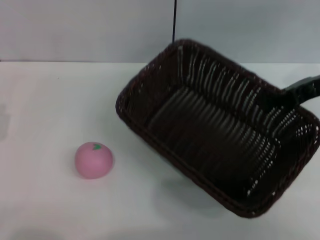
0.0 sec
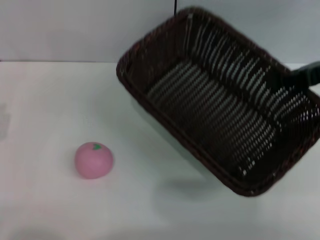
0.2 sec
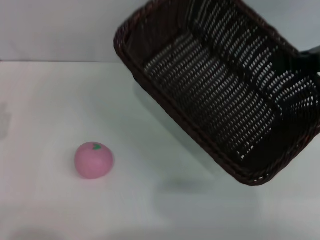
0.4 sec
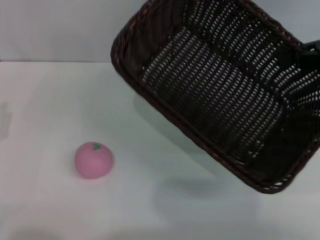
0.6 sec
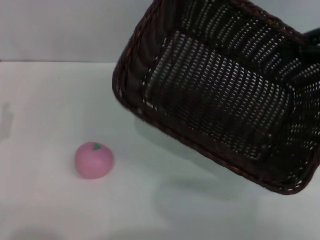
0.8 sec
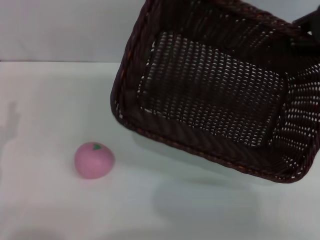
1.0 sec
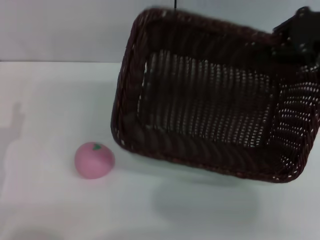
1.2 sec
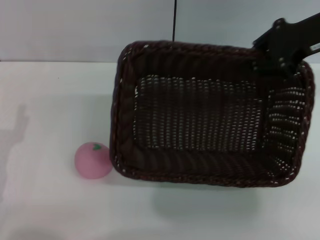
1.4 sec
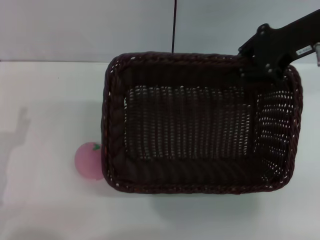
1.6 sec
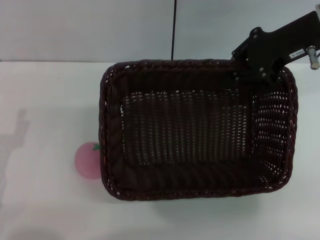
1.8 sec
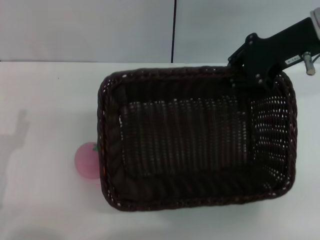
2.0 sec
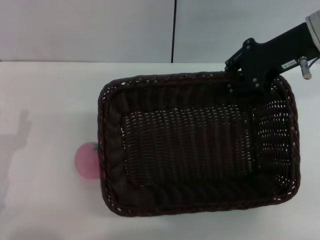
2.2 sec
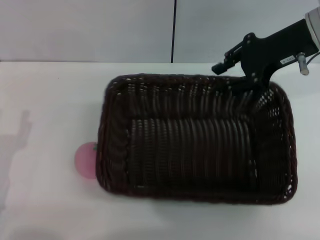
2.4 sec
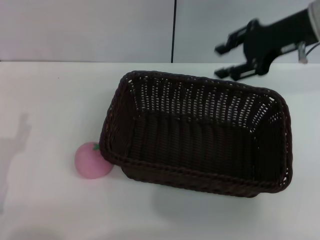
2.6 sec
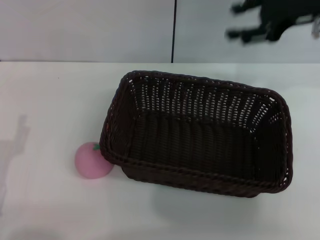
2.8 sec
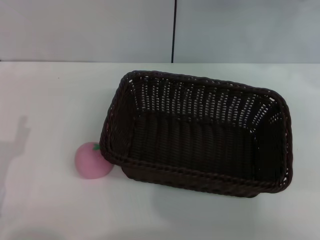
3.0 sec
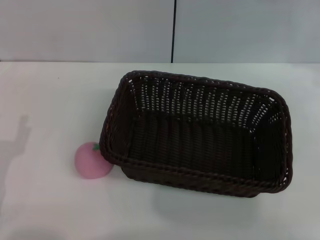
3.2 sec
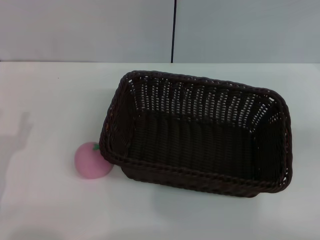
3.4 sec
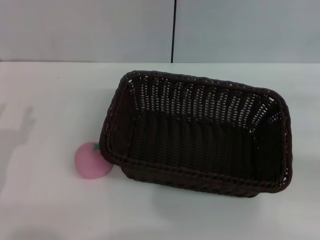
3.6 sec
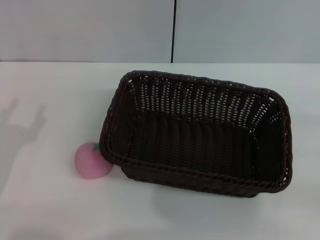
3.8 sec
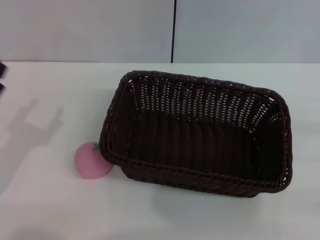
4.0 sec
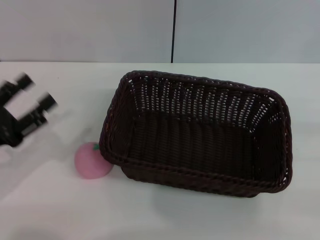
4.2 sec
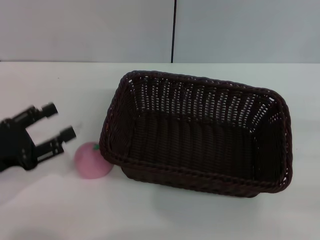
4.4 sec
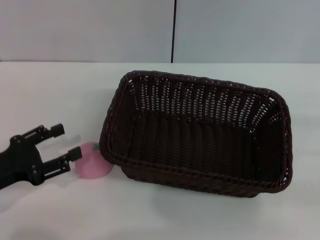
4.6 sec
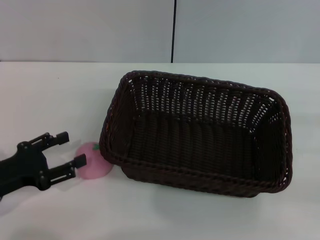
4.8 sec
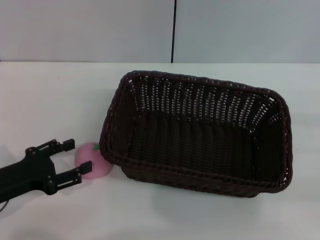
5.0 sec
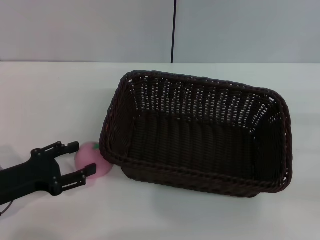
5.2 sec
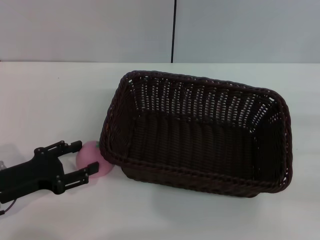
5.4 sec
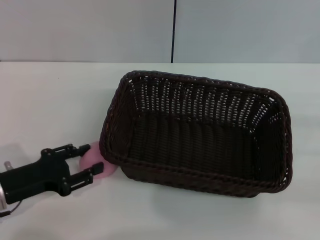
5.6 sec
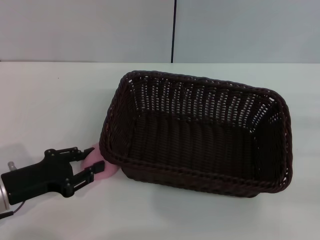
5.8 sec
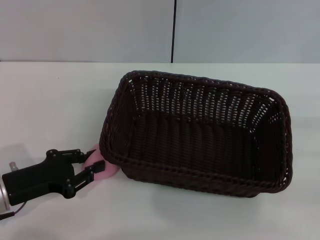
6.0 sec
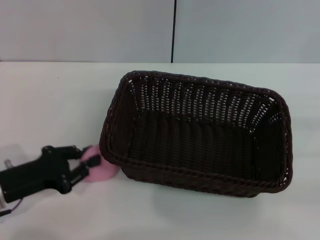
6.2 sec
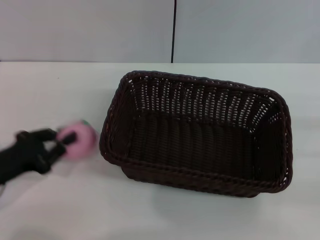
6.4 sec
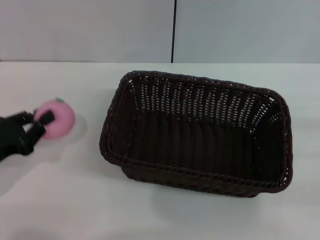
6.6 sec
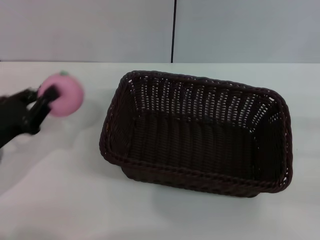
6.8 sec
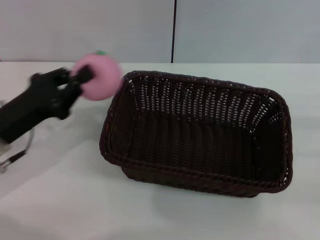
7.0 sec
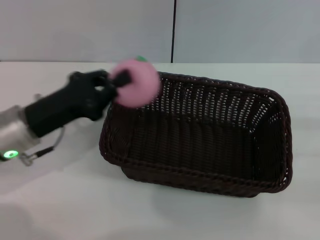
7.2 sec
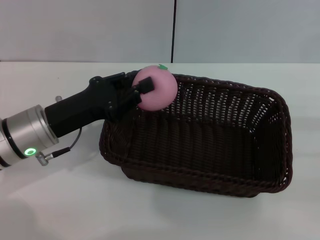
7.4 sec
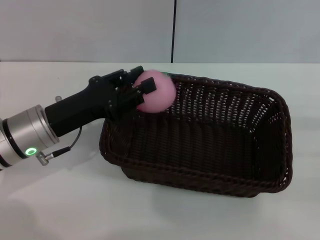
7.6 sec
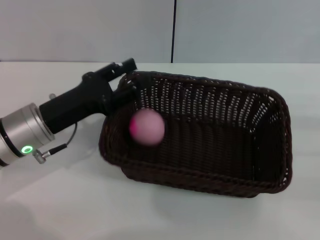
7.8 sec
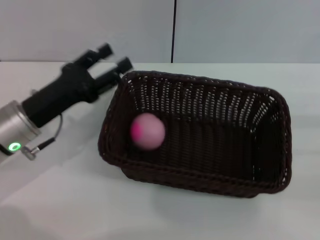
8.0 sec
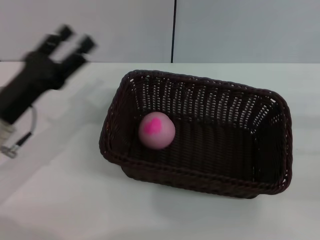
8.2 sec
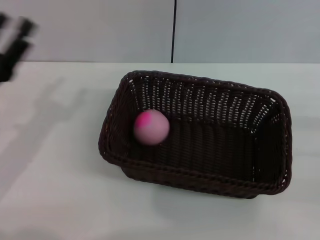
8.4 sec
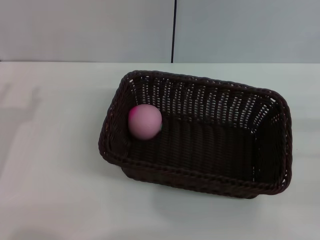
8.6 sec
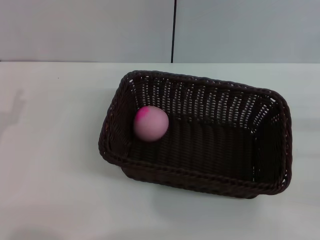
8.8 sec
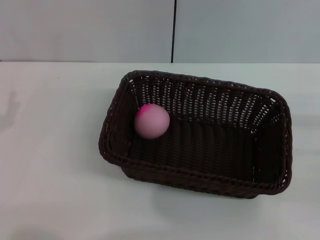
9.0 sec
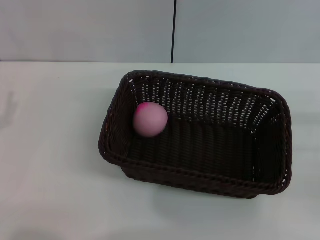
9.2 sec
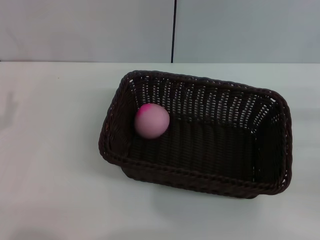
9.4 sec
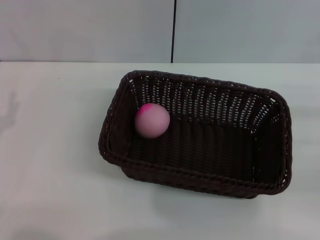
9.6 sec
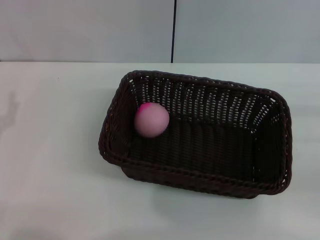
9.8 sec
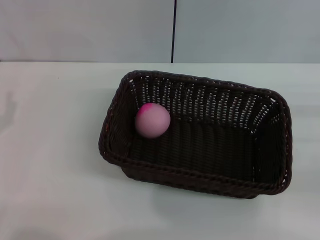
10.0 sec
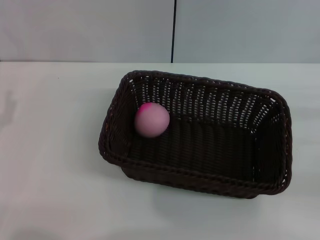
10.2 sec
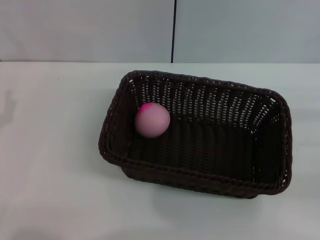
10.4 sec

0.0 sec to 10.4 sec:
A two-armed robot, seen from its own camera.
Step, 0.4 sec to 2.4 sec: Place the dark basket in the center of view with the right gripper.
Step, 2.8 sec to 6.8 sec: Pick up the peach with the left gripper.
Step, 7.0 sec to 8.0 sec: Place the peach into the basket with the left gripper.
0.0 sec to 1.4 sec: The right gripper heads upward, covering approximately 5 cm.
1.4 sec to 3.0 sec: The right gripper heads to the right, covering roughly 5 cm, and opens.
3.0 sec to 4.4 sec: The left gripper goes some 5 cm forward.
4.4 sec to 6.0 sec: The left gripper shifts by some 5 cm, and closes its fingers.
6.0 sec to 7.4 sec: The left gripper shifts about 10 cm to the right, forward and upward.
7.4 sec to 9.0 sec: The left gripper moves to the left and backward, approximately 15 cm, and opens.

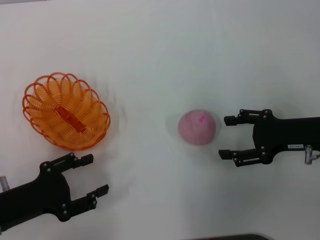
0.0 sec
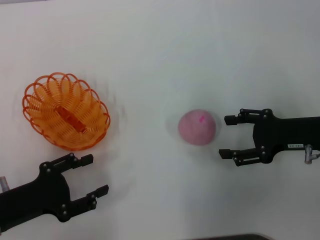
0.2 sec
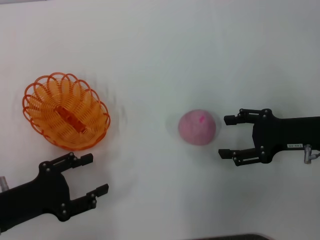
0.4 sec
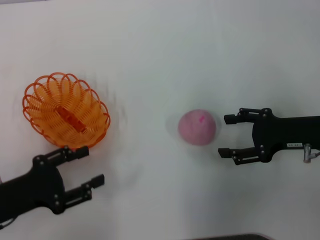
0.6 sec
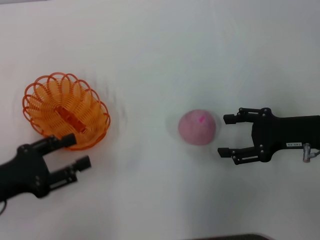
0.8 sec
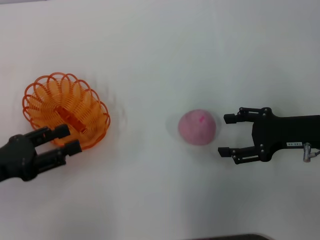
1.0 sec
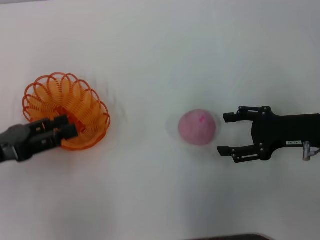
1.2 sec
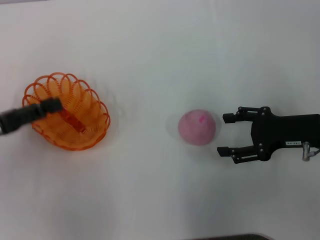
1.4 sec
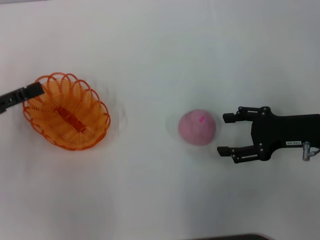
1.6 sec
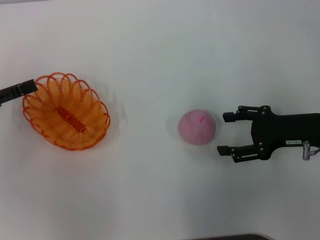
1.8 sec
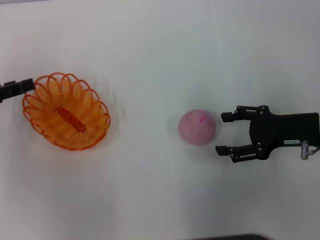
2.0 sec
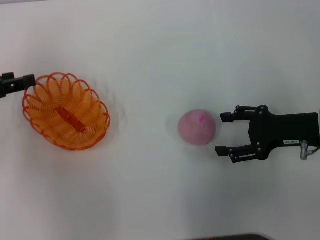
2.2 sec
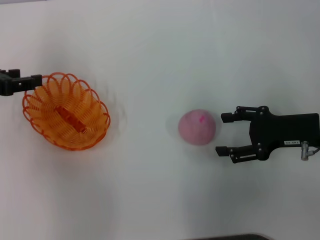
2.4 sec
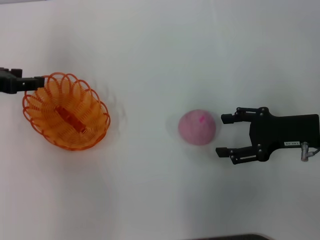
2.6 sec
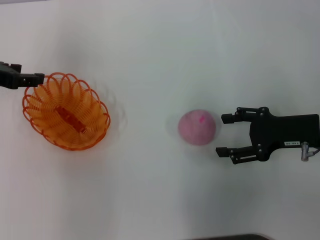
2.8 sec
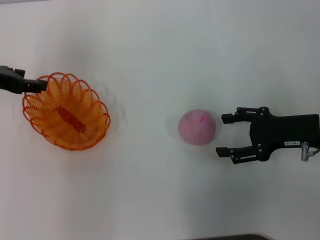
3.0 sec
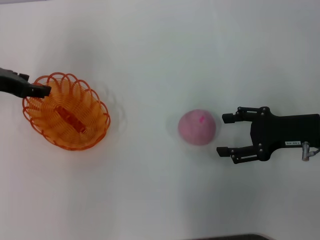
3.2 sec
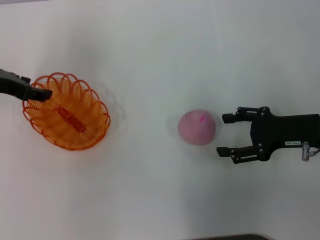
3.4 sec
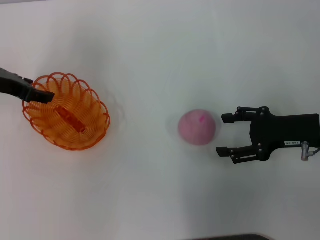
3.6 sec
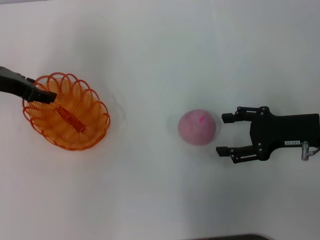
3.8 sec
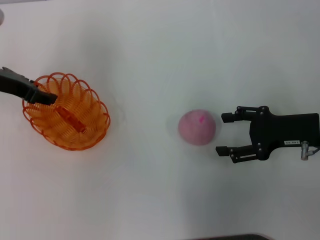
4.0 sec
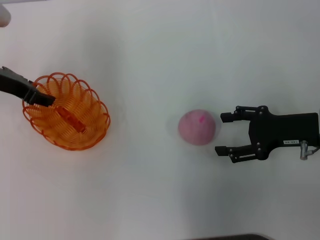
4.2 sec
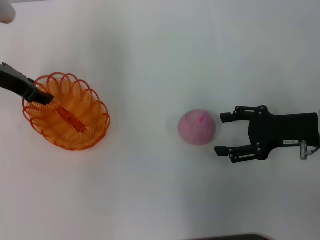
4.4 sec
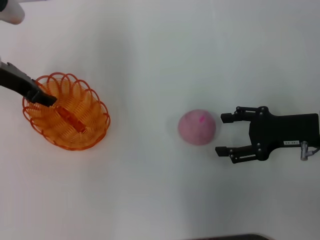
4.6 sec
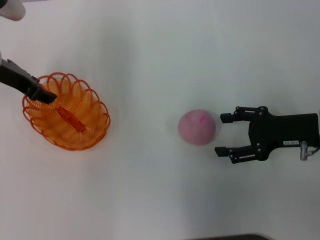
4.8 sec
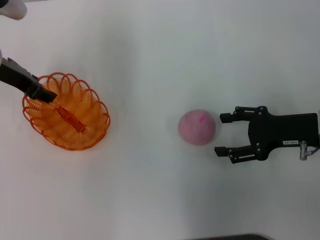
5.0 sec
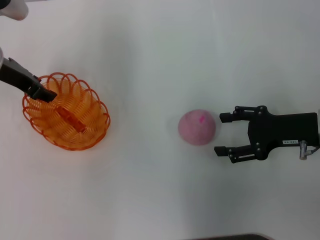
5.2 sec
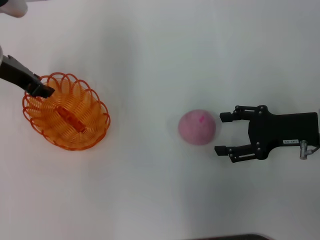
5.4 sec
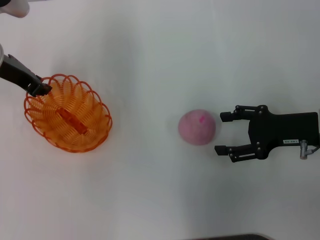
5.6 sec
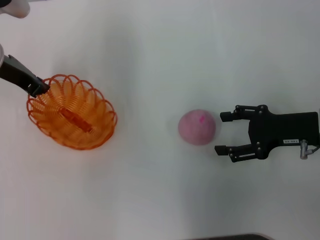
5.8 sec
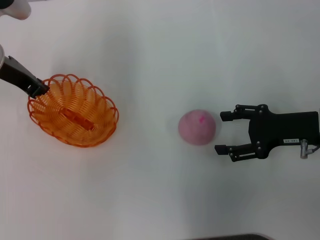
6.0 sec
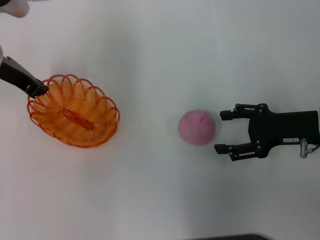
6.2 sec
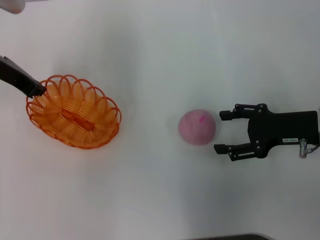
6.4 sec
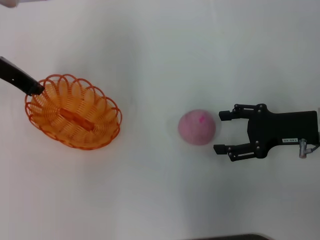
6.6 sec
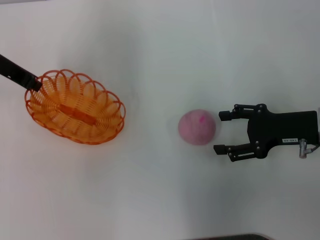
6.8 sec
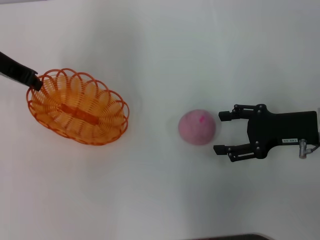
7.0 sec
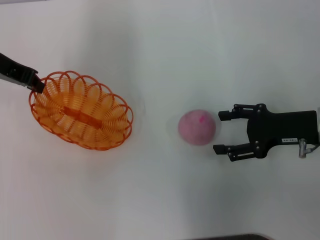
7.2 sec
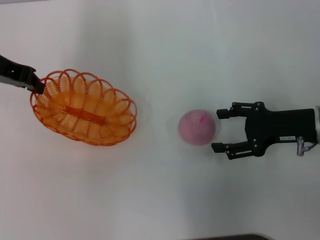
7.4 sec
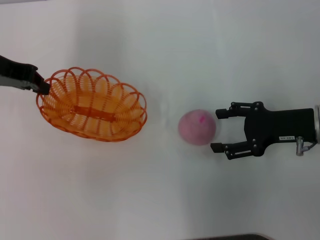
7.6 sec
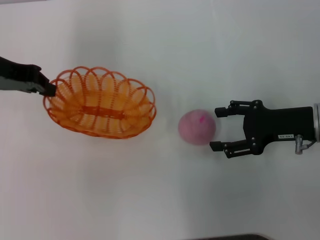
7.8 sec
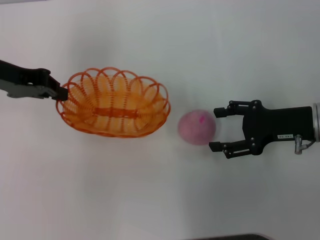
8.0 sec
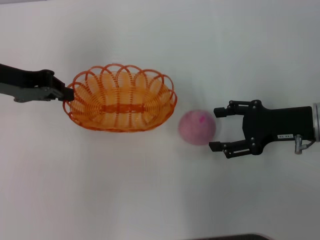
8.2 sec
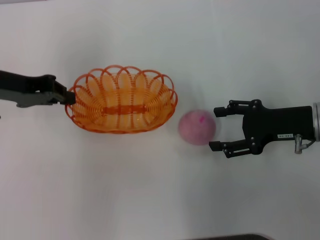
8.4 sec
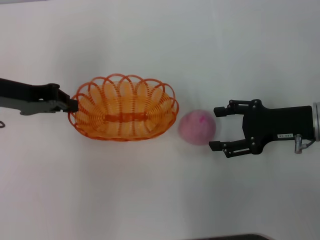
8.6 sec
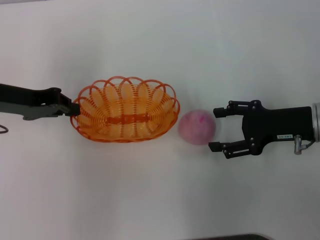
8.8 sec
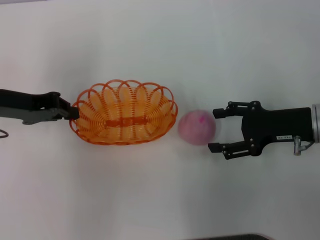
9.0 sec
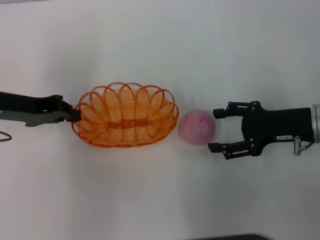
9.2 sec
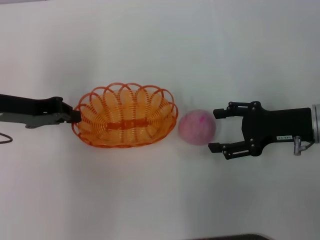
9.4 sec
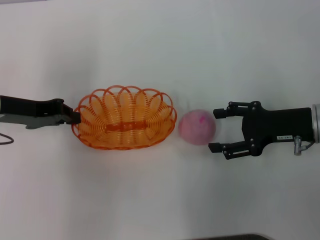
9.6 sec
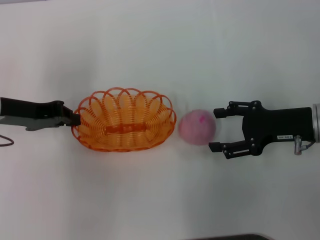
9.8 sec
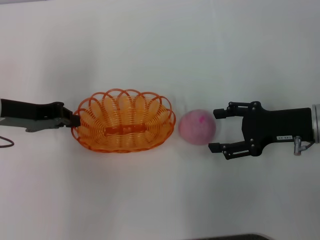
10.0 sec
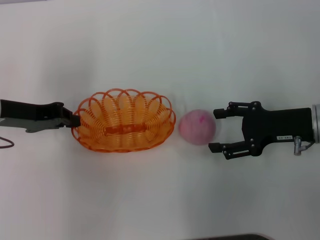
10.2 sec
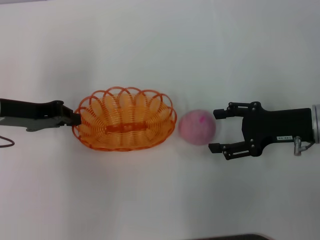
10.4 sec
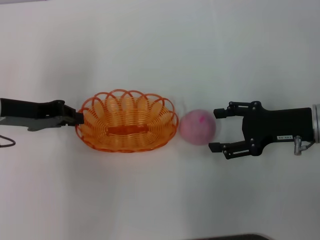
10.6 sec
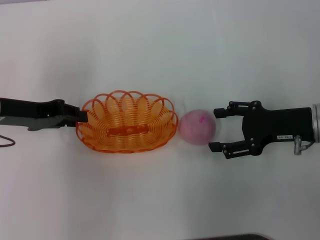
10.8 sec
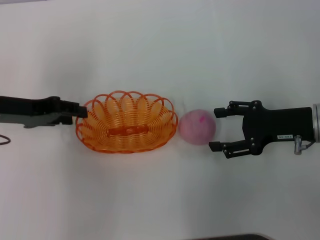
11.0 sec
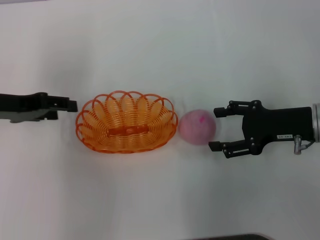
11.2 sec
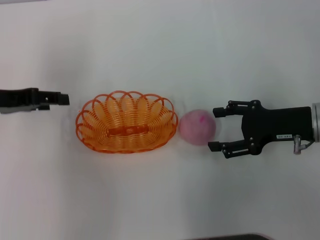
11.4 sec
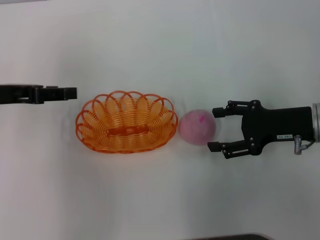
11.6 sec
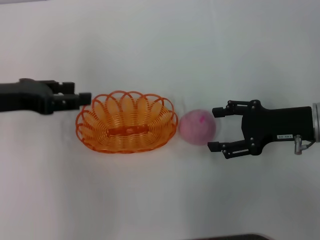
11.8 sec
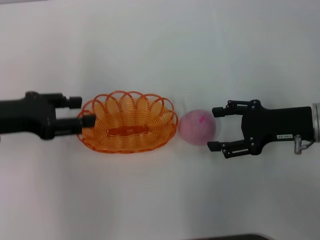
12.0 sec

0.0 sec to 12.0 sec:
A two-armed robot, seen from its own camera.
Step, 0.0 sec to 7.4 sec: Pick up the basket with the left gripper.
0.0 sec to 1.6 sec: The left gripper travels forward, upward and to the left by about 10 cm.
1.6 sec to 3.0 sec: The left gripper goes roughly 10 cm forward.
3.0 sec to 4.4 sec: The grippers stay close to where they were, moving slightly.
4.4 sec to 6.0 sec: The left gripper closes up.
6.0 sec to 7.6 sec: The left gripper moves about 5 cm.
7.6 sec to 9.0 sec: The left gripper travels downward by approximately 5 cm.
9.0 sec to 10.4 sec: There are only small adjustments of the grippers.
10.4 sec to 12.0 sec: The left gripper opens up.
